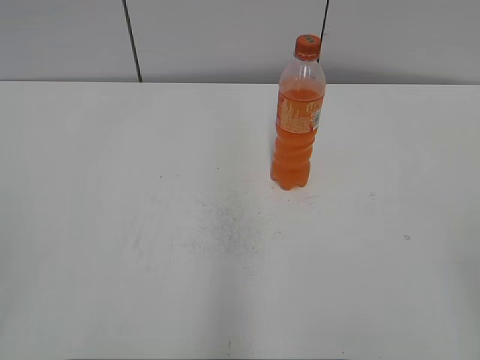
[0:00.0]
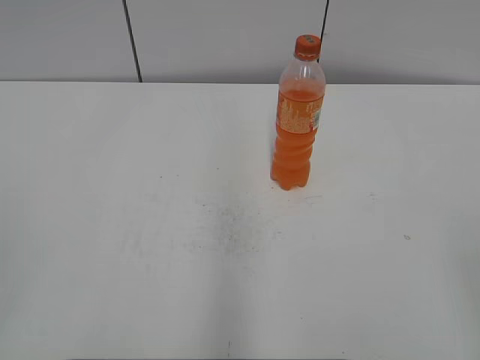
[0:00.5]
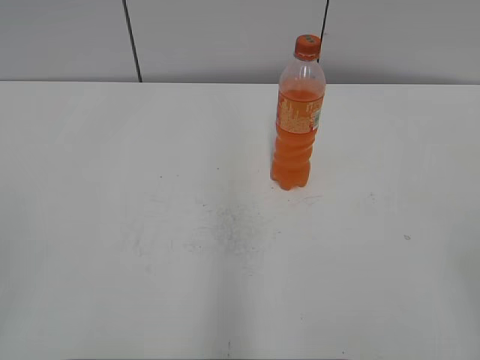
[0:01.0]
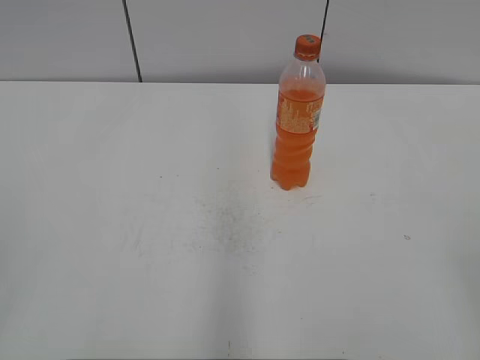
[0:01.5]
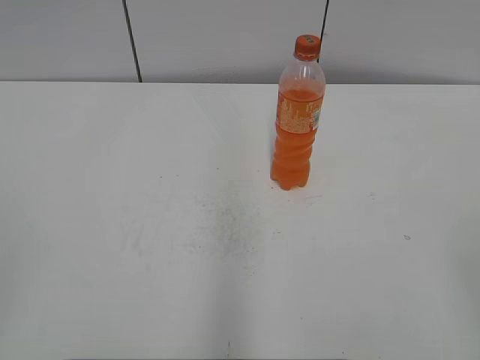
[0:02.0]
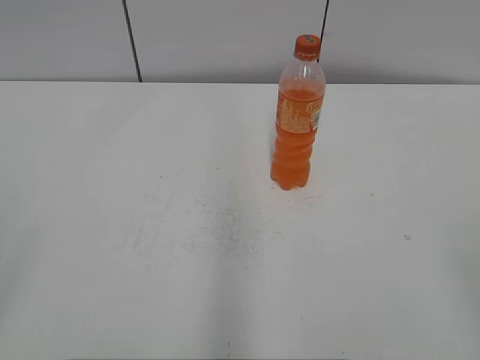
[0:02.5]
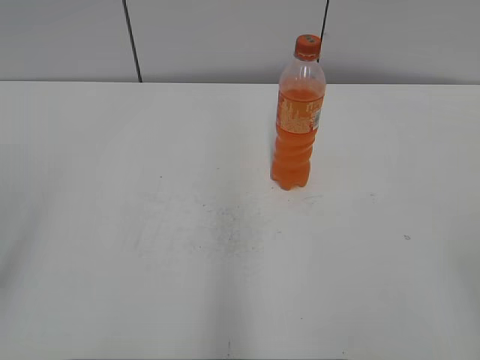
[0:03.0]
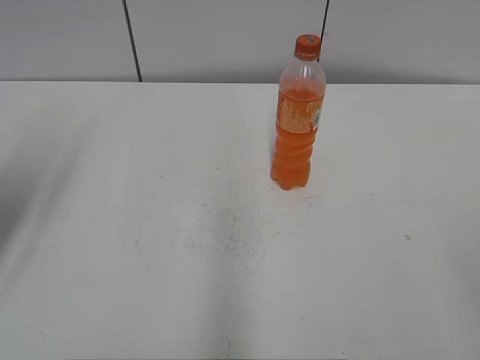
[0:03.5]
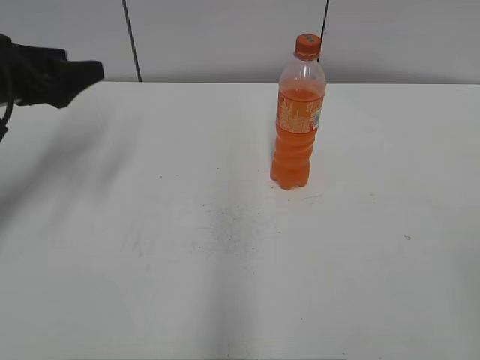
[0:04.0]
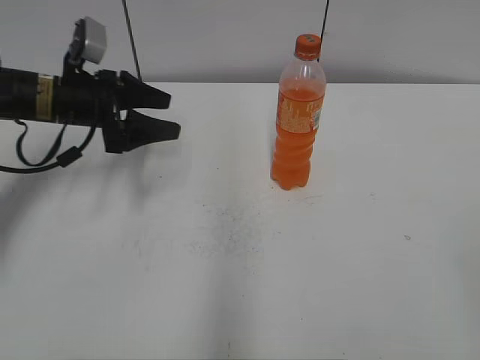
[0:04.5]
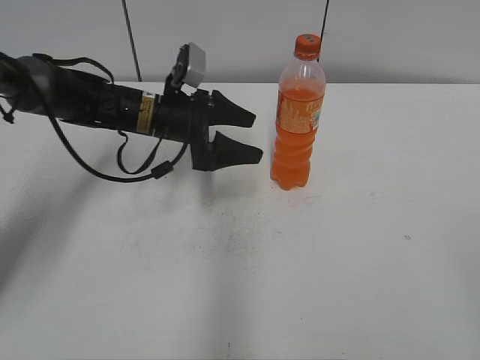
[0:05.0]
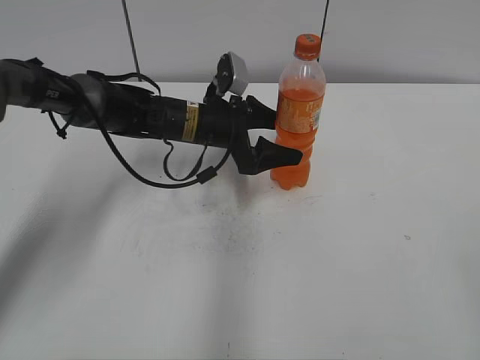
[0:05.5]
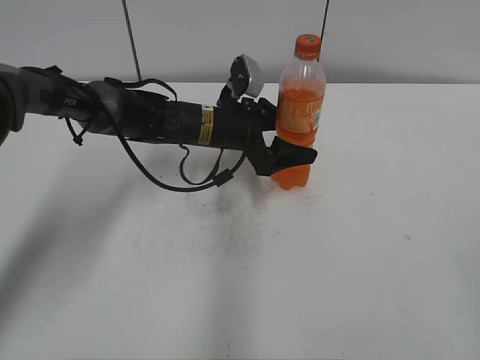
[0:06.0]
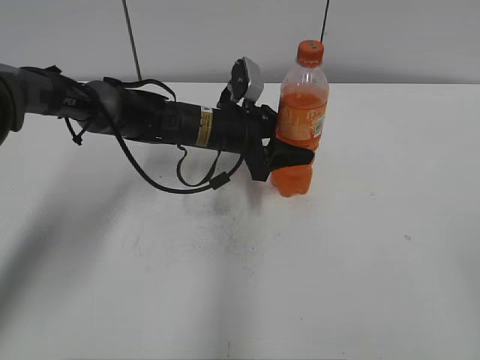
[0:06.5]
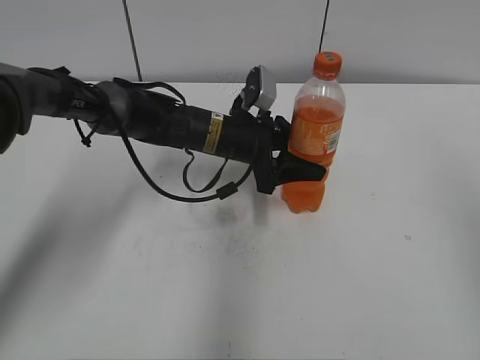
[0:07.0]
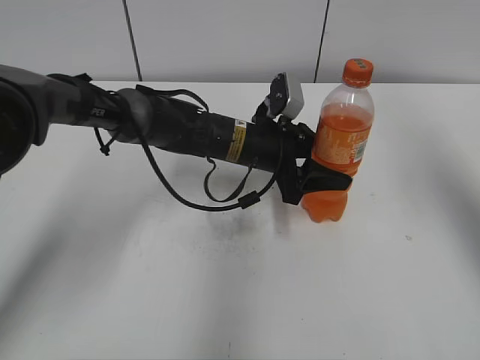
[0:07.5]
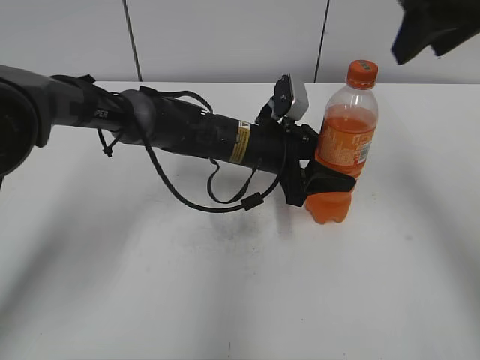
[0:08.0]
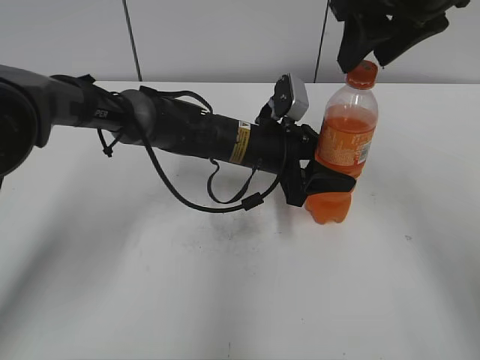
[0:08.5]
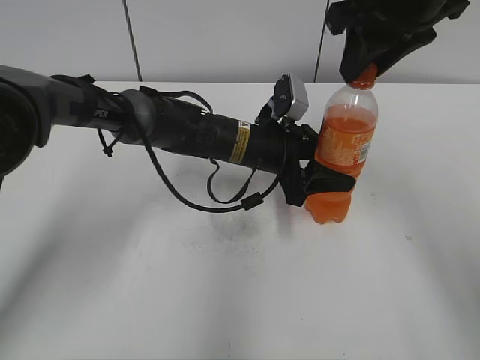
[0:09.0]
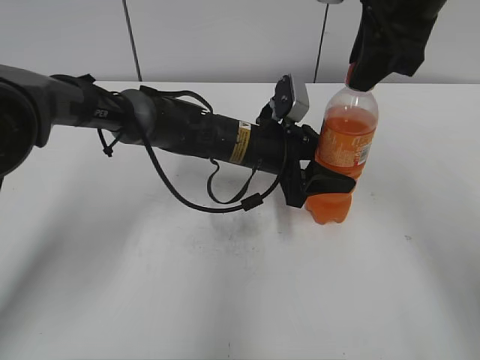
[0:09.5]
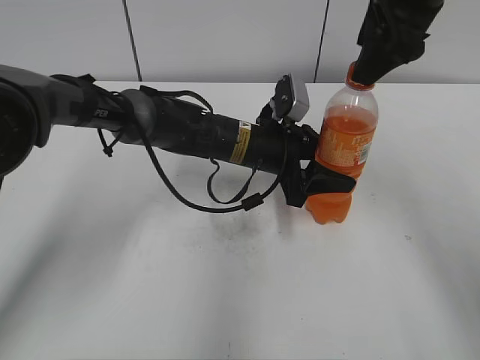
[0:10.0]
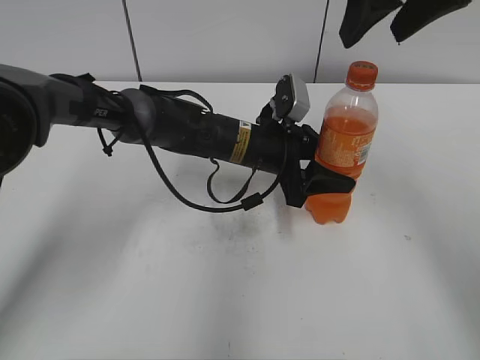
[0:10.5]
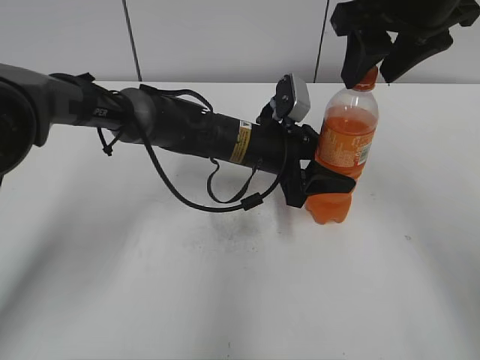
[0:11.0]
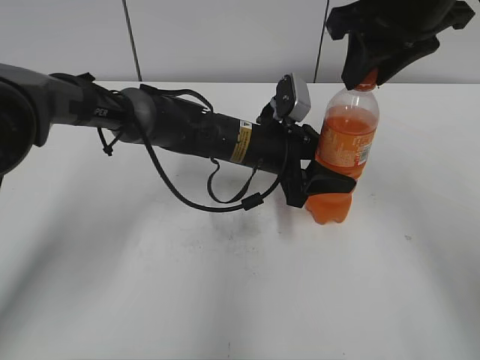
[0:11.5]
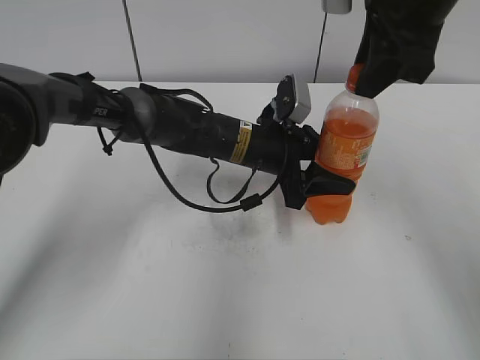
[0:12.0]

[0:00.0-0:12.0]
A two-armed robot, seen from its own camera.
Step, 0:00.0 to 0:06.0: Grab the Mirinda with the left hand.
Step, 0:06.5 to 0:07.5: Move the Mirinda from left to right.
0:02.0 to 0:04.0: The left gripper goes approximately 35 cm forward, and opens.
0:04.0 to 0:06.0: The left gripper moves to the right and downward, approximately 30 cm.
0:06.0 to 0:08.0: The right gripper is displaced forward by some 30 cm. The left gripper changes place by about 5 cm, and closes.
0:08.0 to 0:10.0: The right gripper moves some 5 cm.
0:10.0 to 0:12.0: The right gripper closes up.

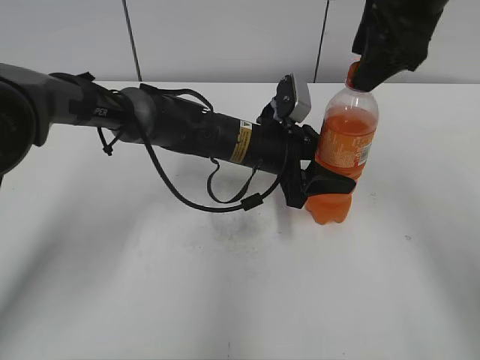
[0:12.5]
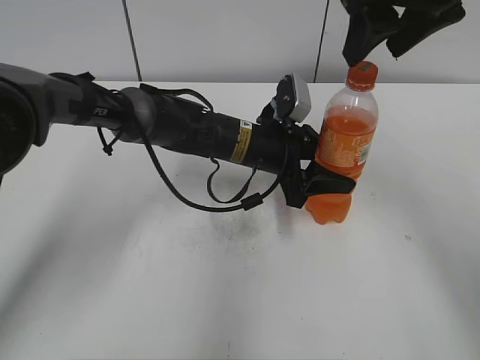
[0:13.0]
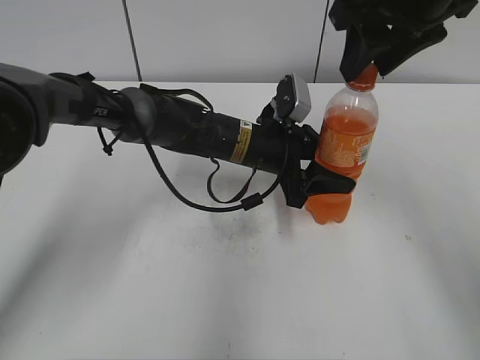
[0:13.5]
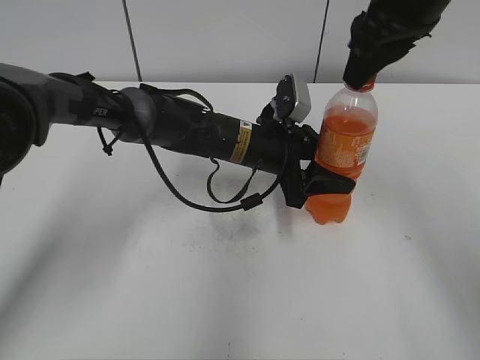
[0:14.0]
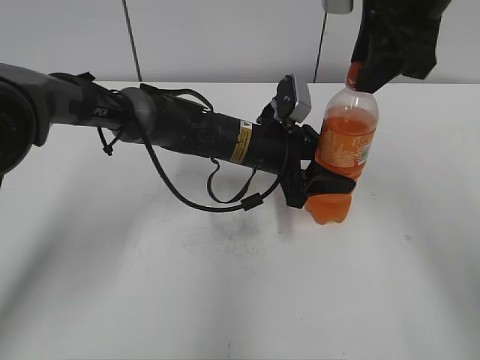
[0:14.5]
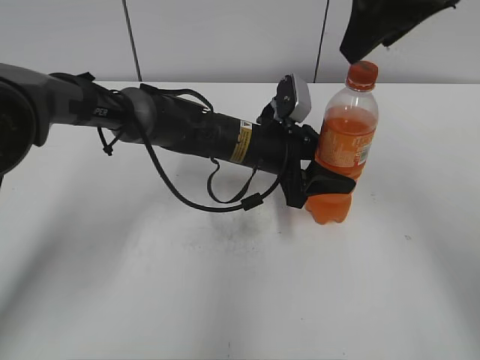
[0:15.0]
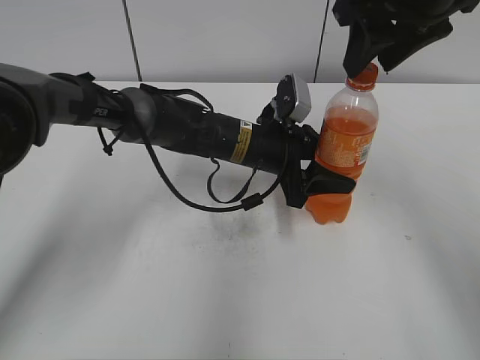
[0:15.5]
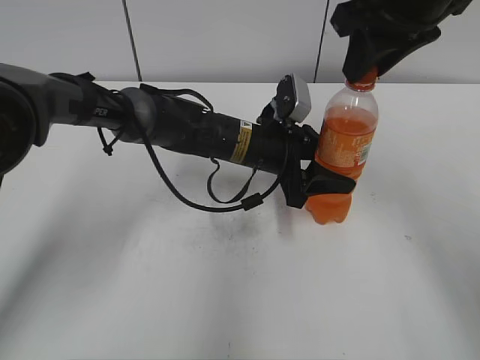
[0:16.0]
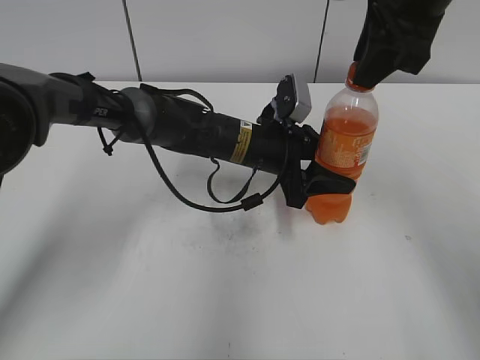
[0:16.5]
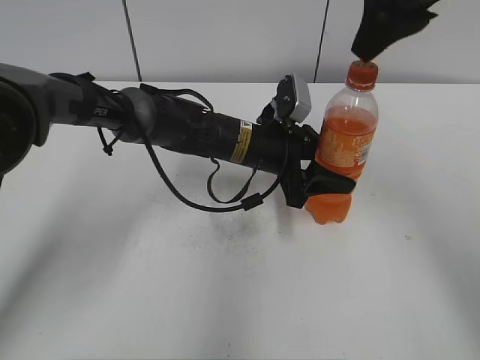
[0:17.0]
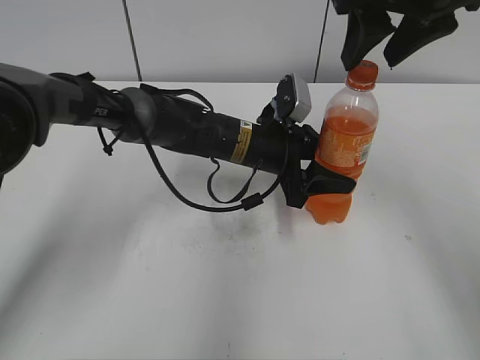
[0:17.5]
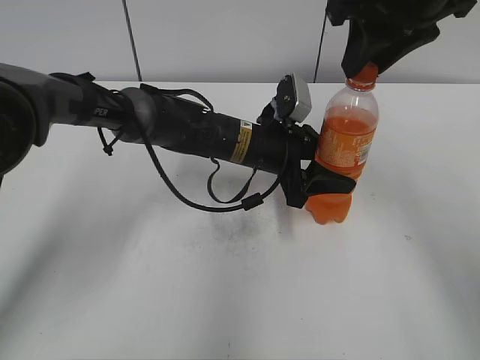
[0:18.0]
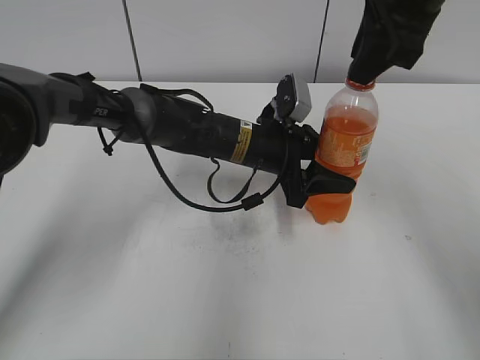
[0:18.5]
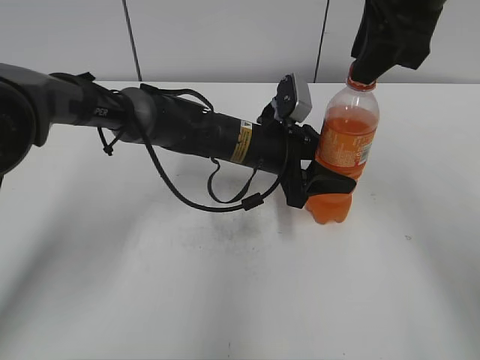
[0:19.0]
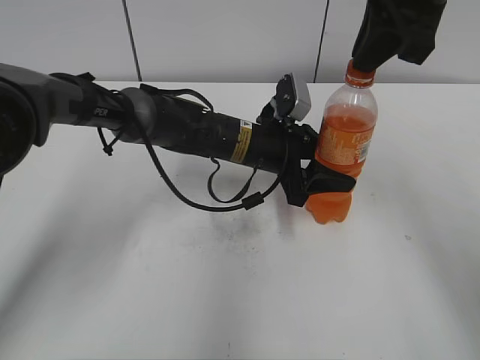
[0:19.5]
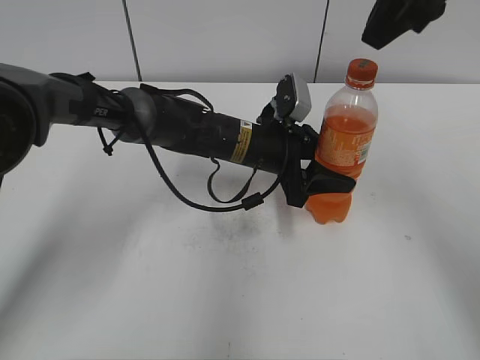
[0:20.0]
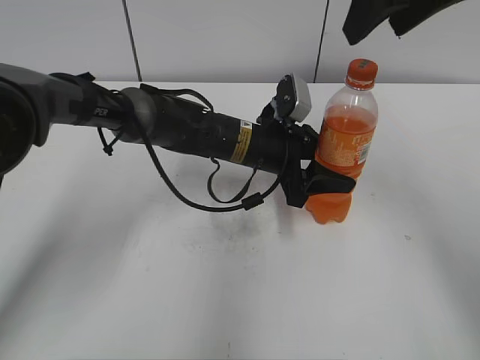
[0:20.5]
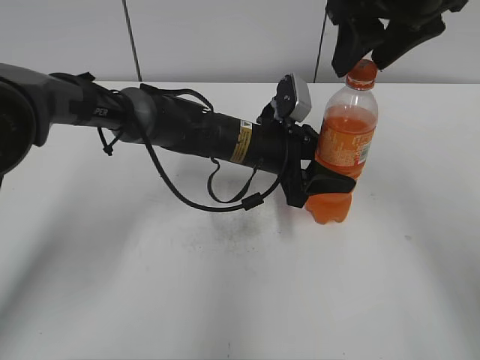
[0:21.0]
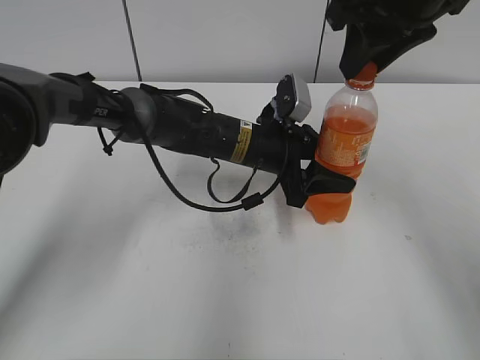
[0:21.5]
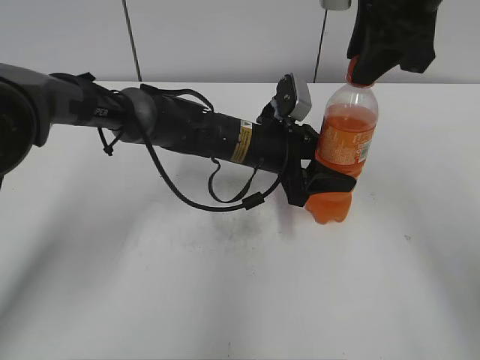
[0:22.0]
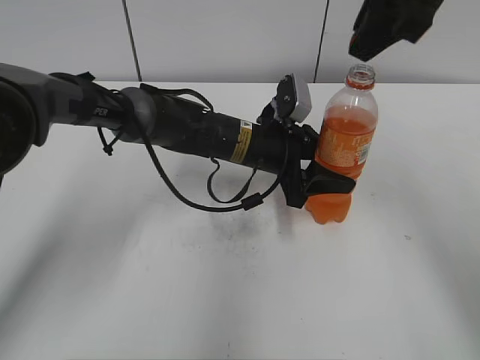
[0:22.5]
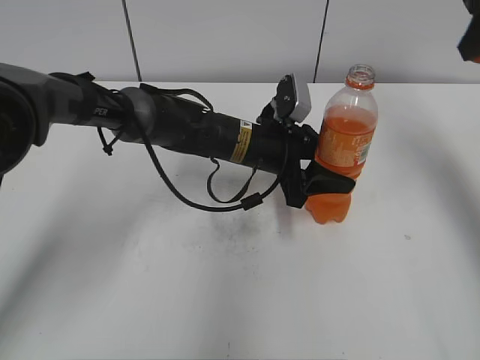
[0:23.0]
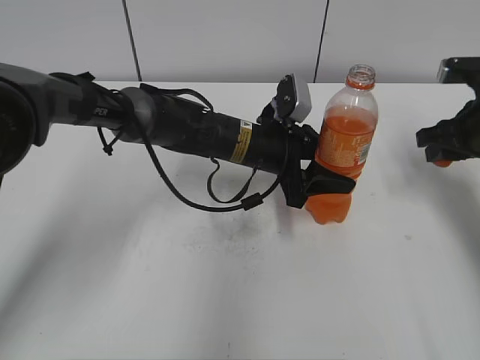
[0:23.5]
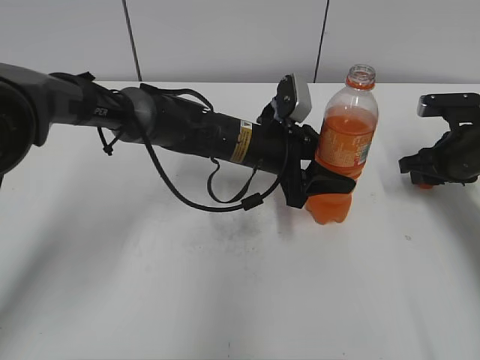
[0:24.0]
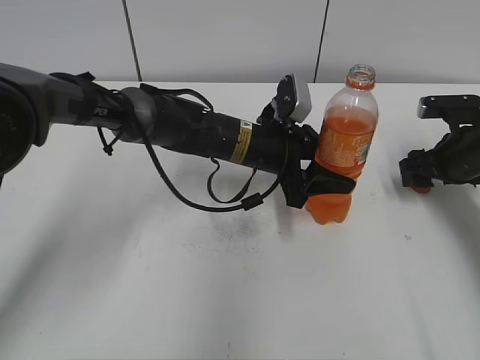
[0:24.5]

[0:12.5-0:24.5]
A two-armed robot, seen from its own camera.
Step, 0:22.5 to 0:24.5: Place the bottle cap on the right.
0:16.5 to 0:18.5: The right gripper opens, then closes once more.
0:18.5 to 0:20.5: The right gripper opens up.
0:20.5 to 0:22.5: The right gripper closes up.
0:22.5 to 0:24.5: The right gripper goes approximately 30 cm downward and to the right, and opens up.

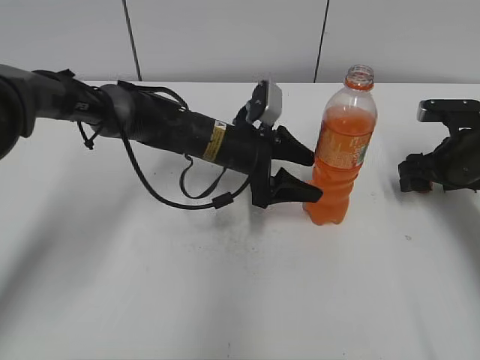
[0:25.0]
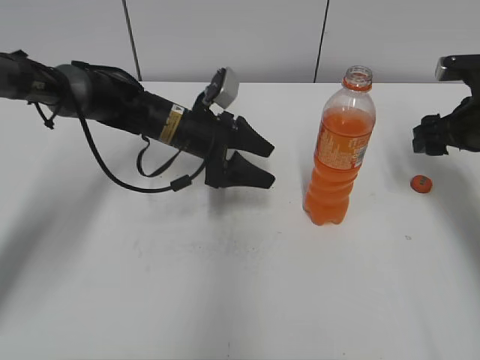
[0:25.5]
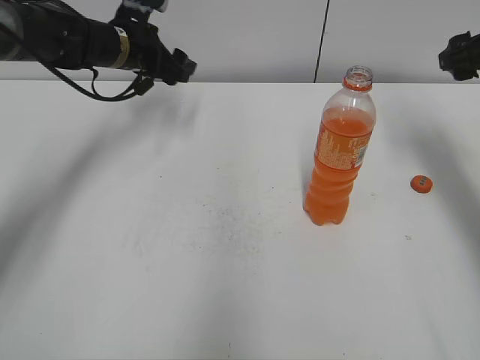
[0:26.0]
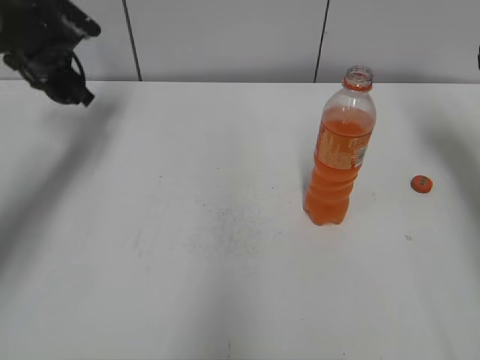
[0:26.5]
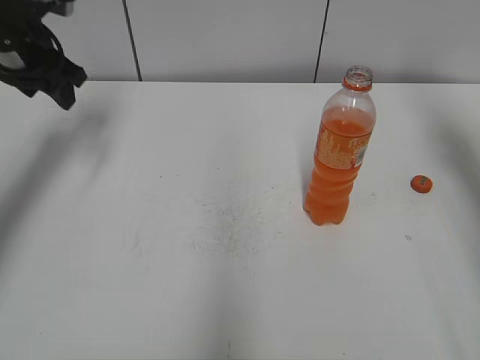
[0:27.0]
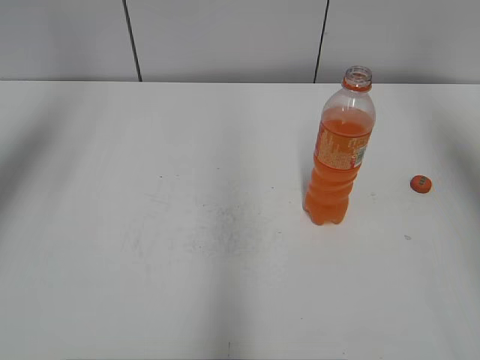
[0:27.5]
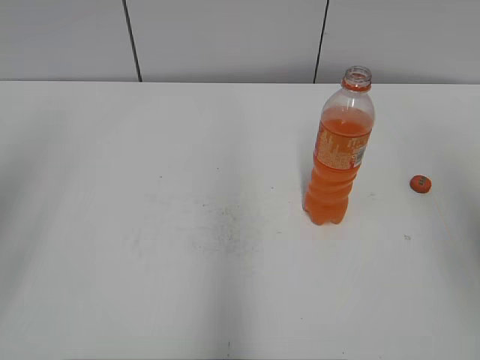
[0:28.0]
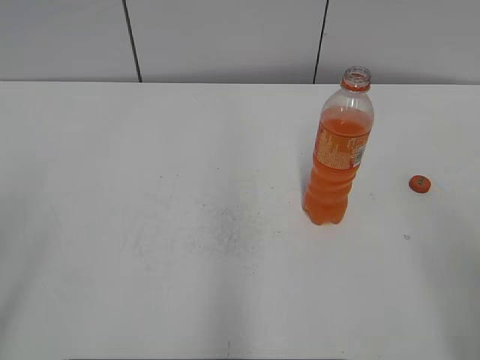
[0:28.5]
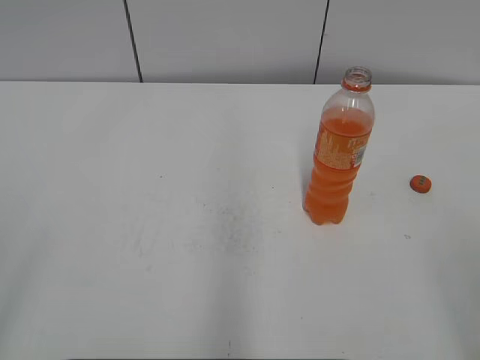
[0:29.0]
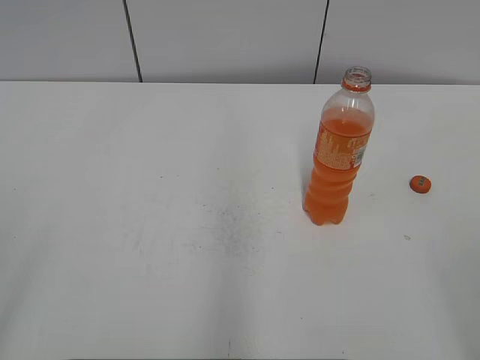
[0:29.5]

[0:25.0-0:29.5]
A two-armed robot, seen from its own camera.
0:25.0 to 0:27.0: The right gripper travels upward by approximately 20 cm, while the left gripper travels to the left and upward by some 30 cm.
0:27.0 to 0:29.5: Both grippers move backward, approximately 40 cm. The left gripper opens.
